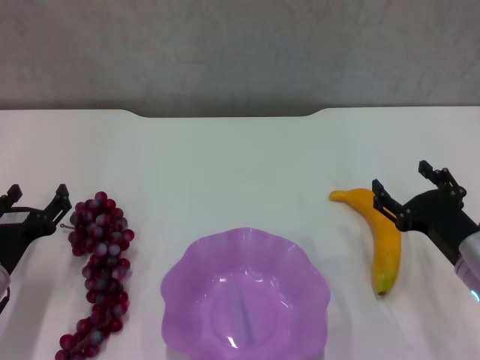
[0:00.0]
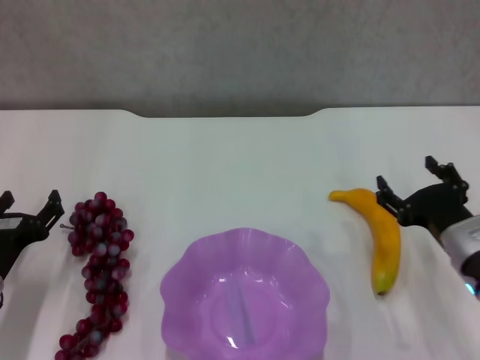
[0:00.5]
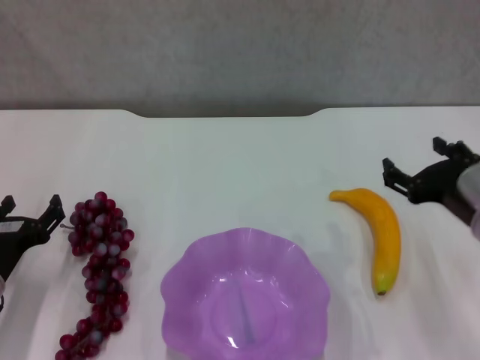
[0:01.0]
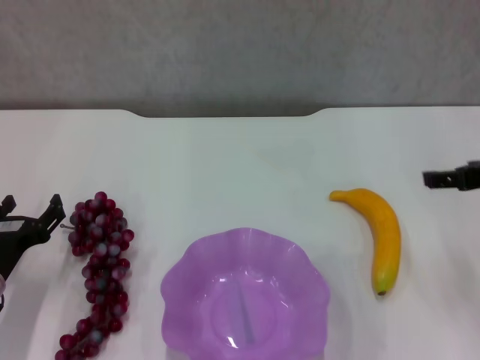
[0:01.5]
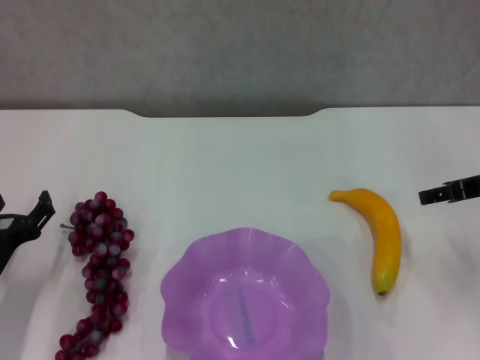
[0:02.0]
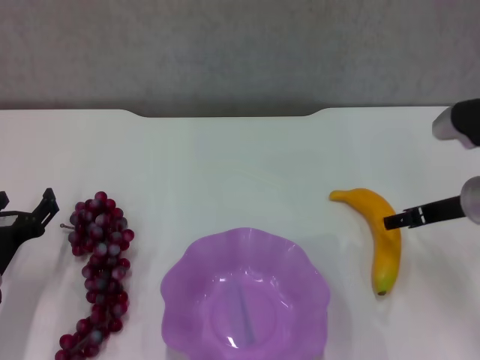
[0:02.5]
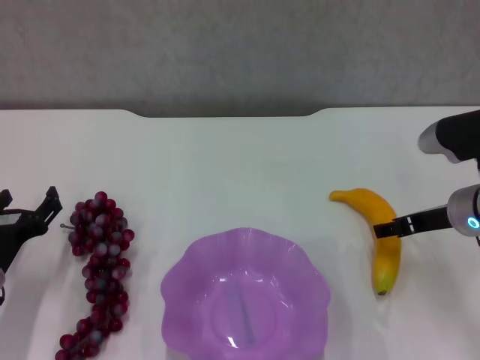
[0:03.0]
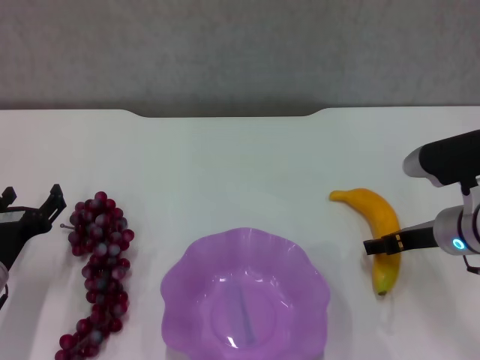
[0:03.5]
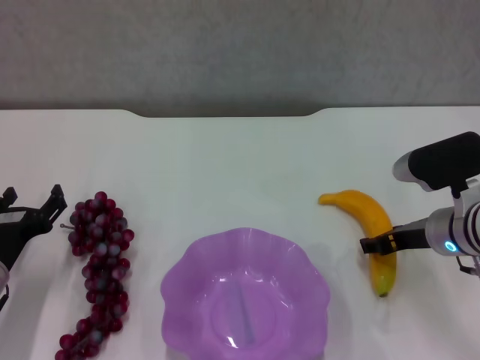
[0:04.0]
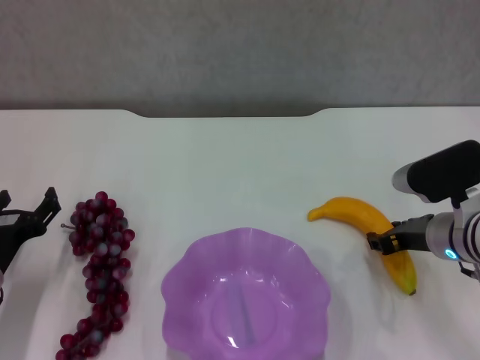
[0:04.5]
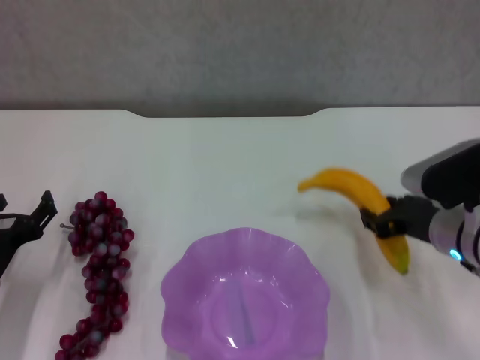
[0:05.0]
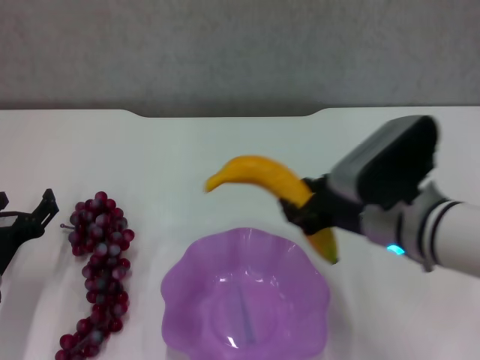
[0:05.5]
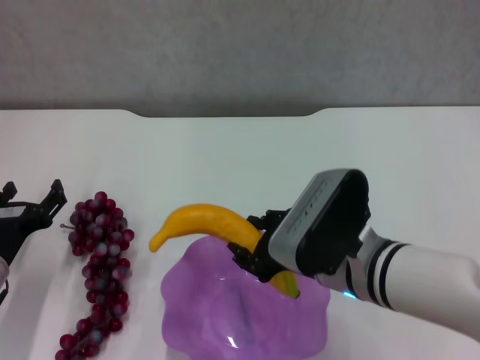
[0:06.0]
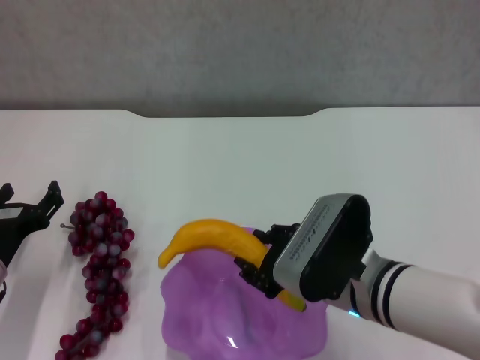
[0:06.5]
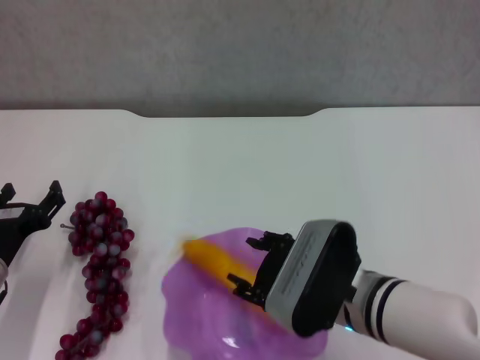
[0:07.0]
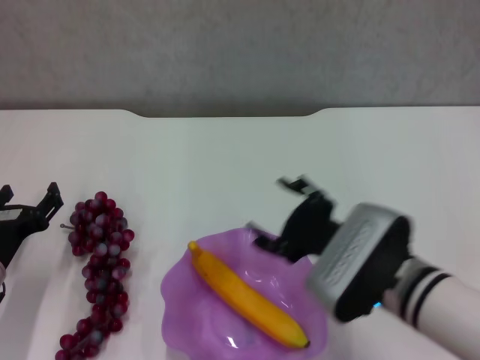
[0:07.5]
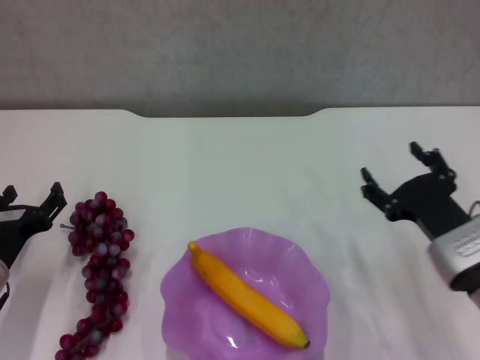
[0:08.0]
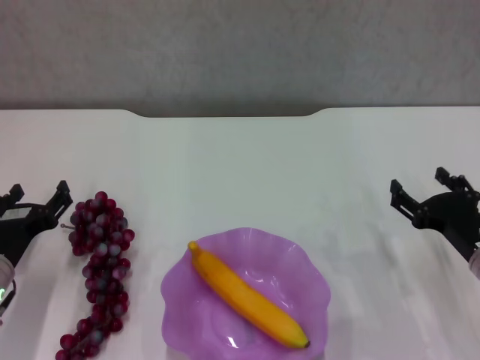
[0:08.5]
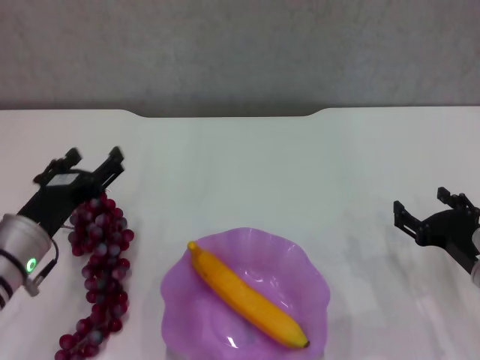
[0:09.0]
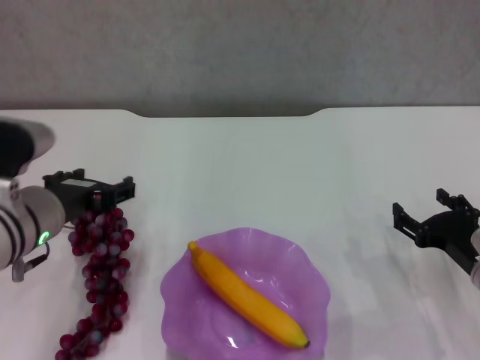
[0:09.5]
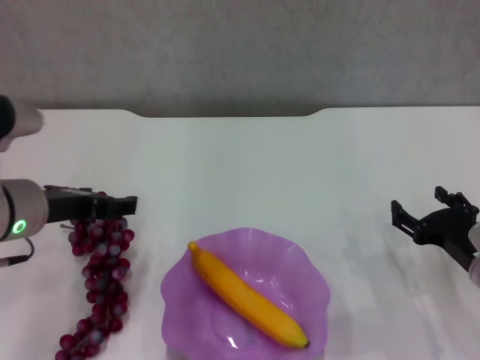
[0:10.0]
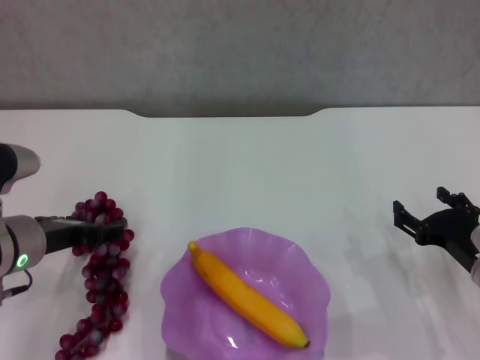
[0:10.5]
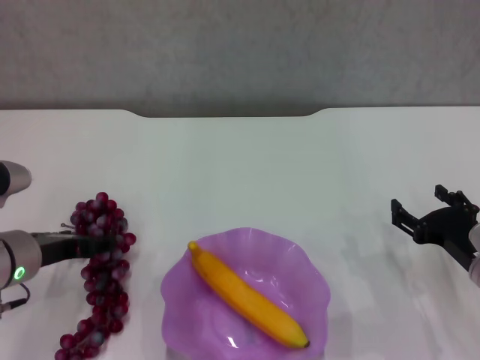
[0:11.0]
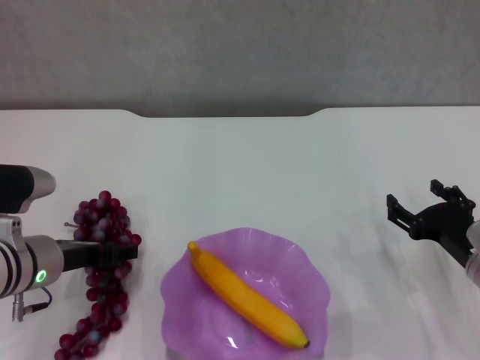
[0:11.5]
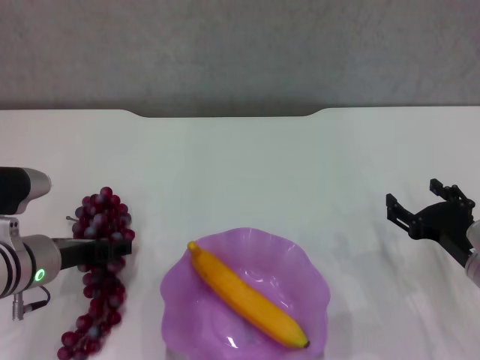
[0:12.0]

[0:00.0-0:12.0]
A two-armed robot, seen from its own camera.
Step, 0:00.0 to 0:04.0: Grasp the banana with right gripper.
Step, 0:04.5 to 0:07.0: Place the banana in the purple plate with right gripper.
0:00.0 to 0:02.0: The right gripper shifts about 15 cm upward and forward.
0:02.0 to 0:04.0: The right gripper heads downward and to the left, covering some 10 cm.
0:04.0 to 0:06.0: The right gripper goes approximately 15 cm to the left and backward, and closes its fingers.
0:06.0 to 0:08.0: The right gripper travels to the right and downward by roughly 15 cm, and opens its fingers.
0:08.0 to 0:10.0: The left gripper goes about 15 cm upward and to the right. The right gripper changes place by about 5 cm.
0:10.0 to 0:12.0: The left gripper travels downward by some 10 cm.

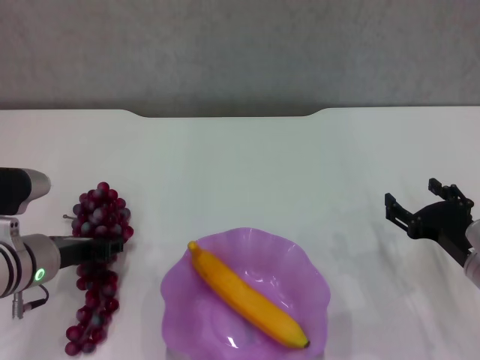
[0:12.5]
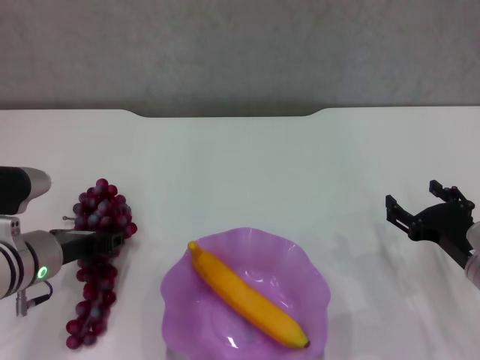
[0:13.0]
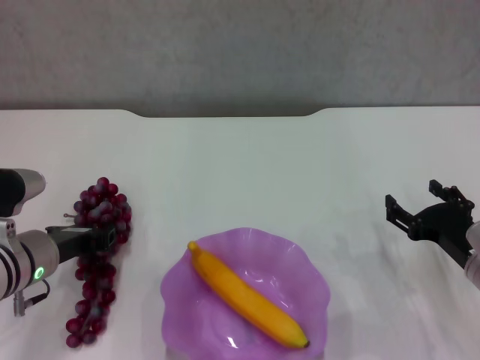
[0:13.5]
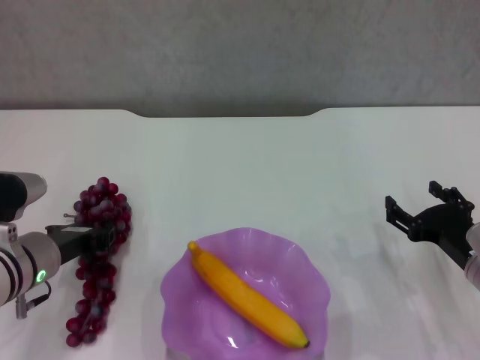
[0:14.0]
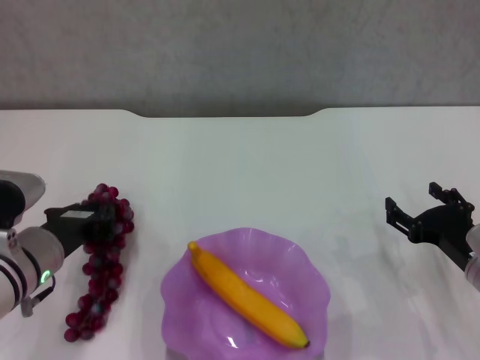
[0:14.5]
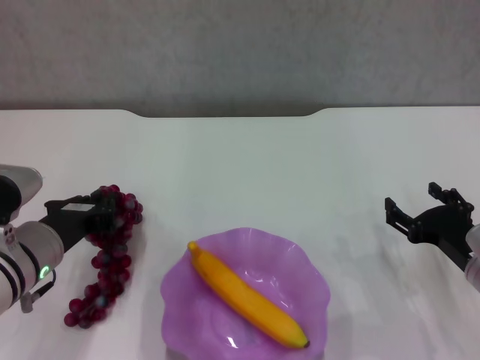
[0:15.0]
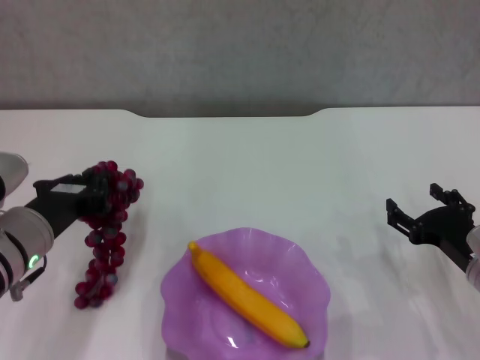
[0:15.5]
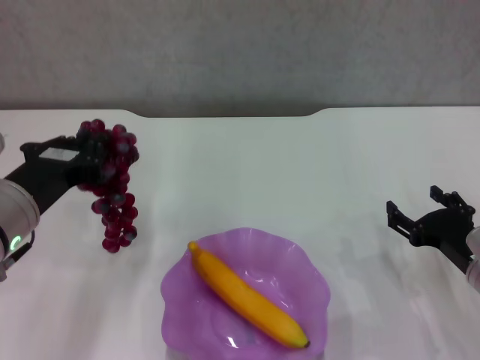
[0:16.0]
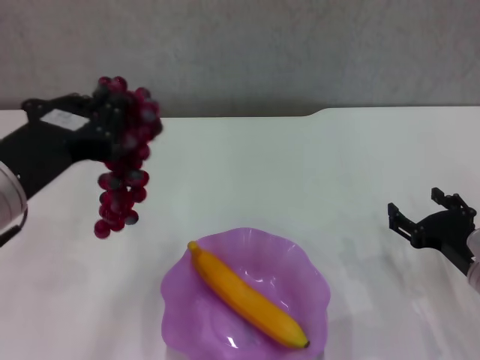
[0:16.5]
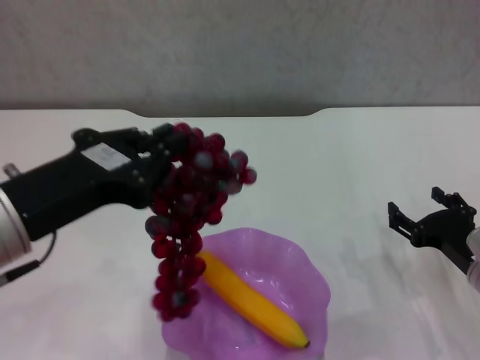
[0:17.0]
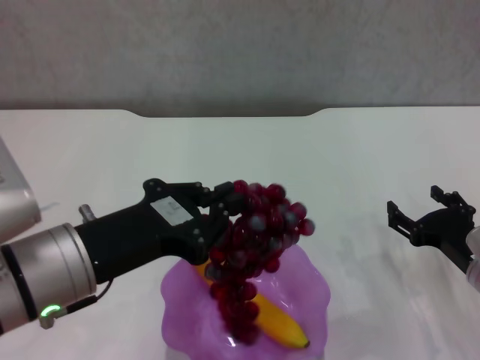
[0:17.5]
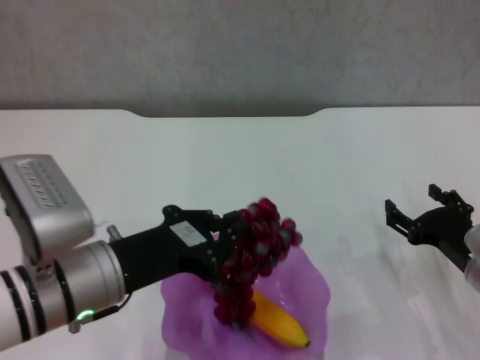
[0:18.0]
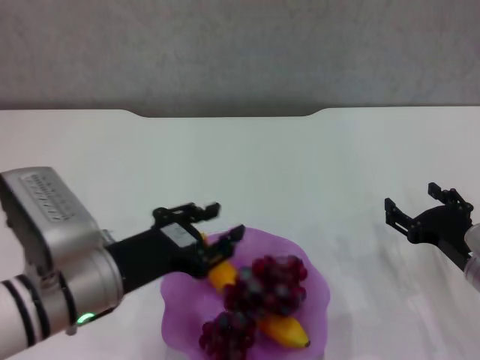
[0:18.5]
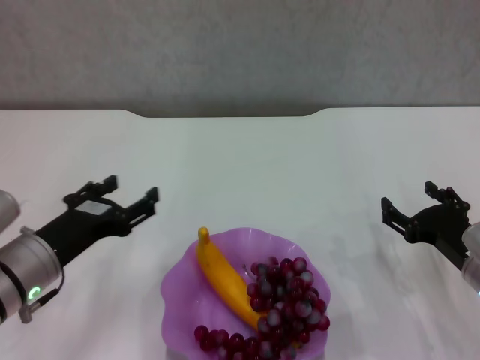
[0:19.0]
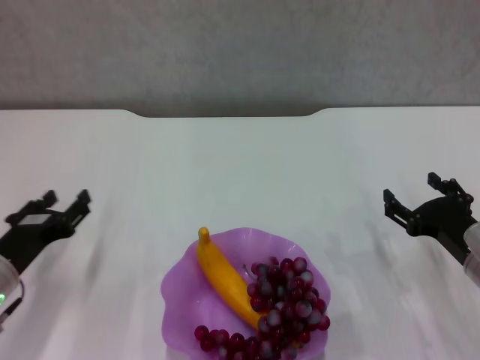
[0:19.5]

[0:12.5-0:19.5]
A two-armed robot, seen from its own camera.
Step, 0:12.5 to 0:18.5: Place the grape in the purple plate with left gripper.
0:12.5 to 0:14.5: The left gripper closes its fingers.
0:14.5 to 0:16.0: The left gripper is displaced upward by about 10 cm.
0:16.0 to 0:17.5: The left gripper changes place by some 5 cm.
0:17.5 to 0:19.5: The left gripper is displaced downward, to the left and forward by roughly 20 cm, and opens its fingers.
